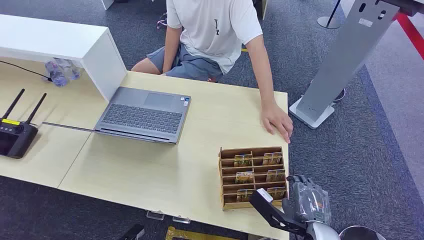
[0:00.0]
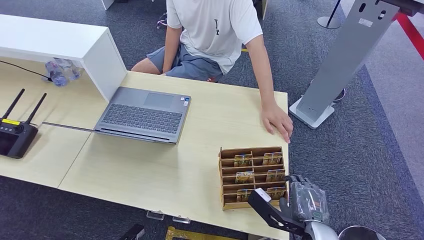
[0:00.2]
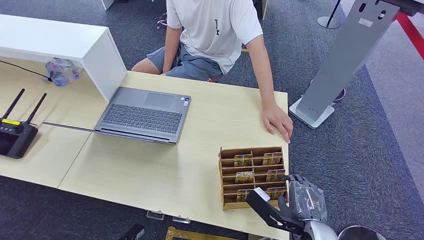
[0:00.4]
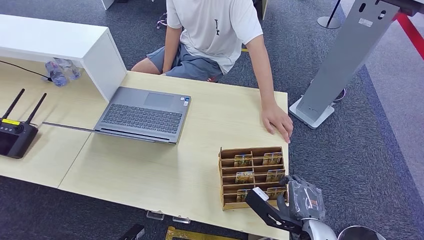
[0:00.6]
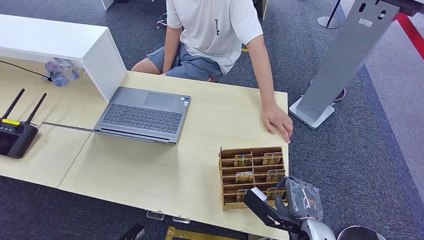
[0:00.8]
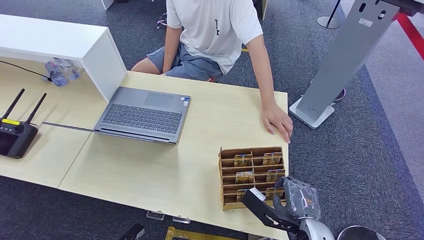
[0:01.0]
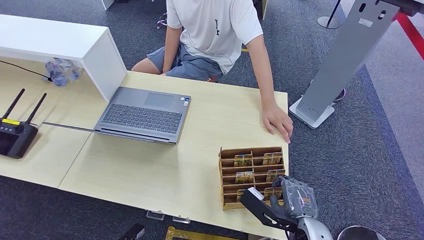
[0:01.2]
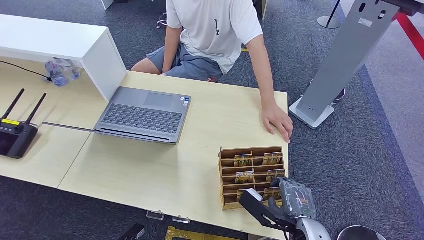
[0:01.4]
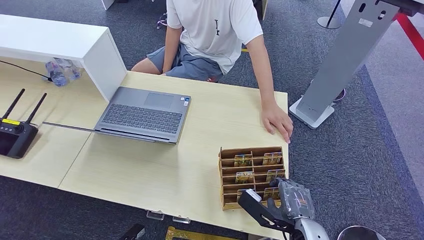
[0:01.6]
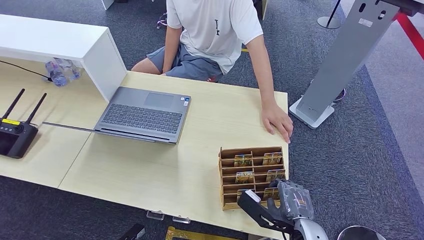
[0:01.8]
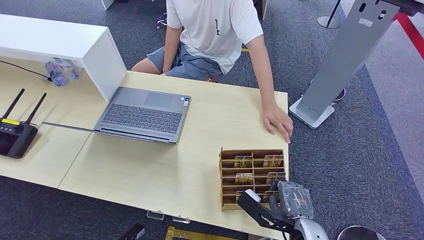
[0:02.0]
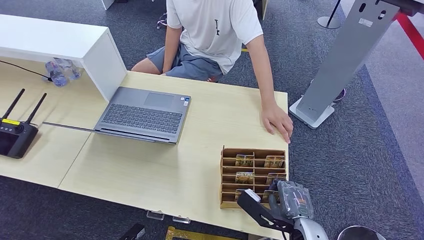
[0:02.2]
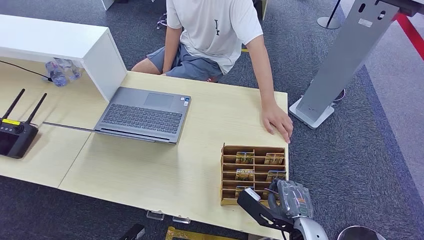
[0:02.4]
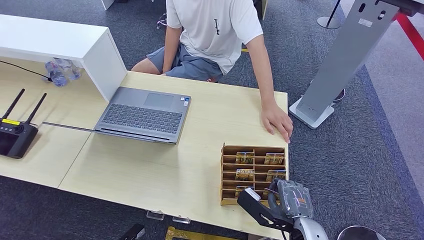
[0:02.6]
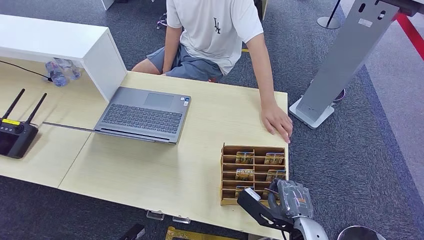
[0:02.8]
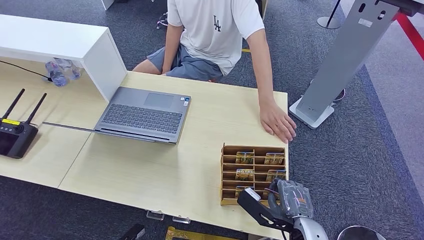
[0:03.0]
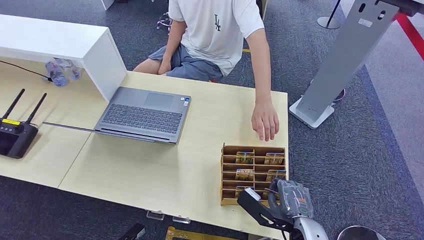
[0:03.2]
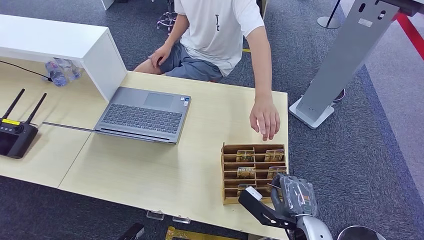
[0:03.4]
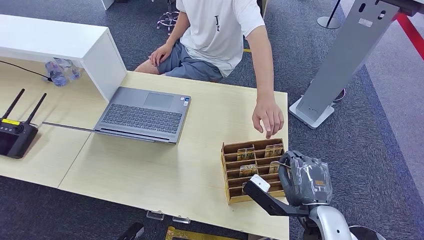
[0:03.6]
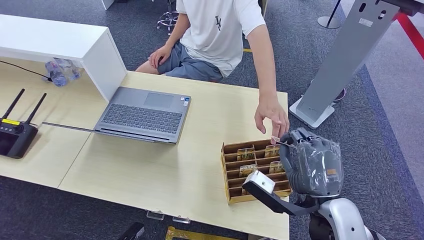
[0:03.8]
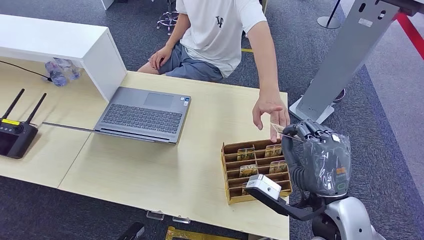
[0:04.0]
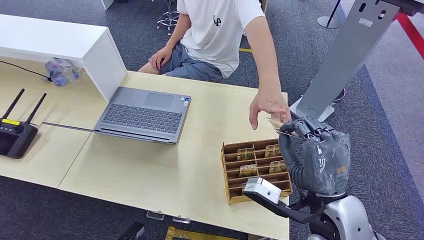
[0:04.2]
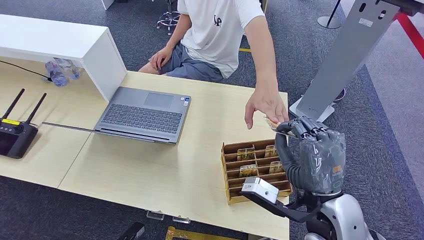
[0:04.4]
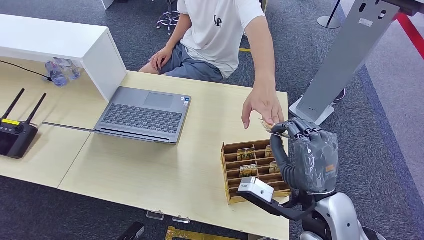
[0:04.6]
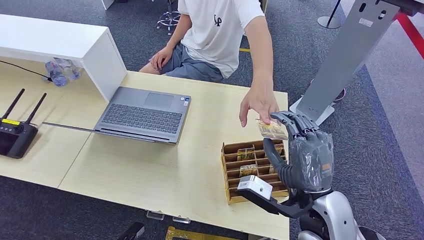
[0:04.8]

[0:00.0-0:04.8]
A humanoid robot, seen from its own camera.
Task of the whole recording: Pick up the card and hand it over to the target person.
Step, 0:00.0 to 0:03.8: Pick up the key card from the card box.
Step, 0:04.0 to 0:04.8: Hand the key card to the target.
0:01.6 to 0:03.2: The hands move only a little.
0:03.2 to 0:04.8: The right hand shifts some 5 cm upward.
